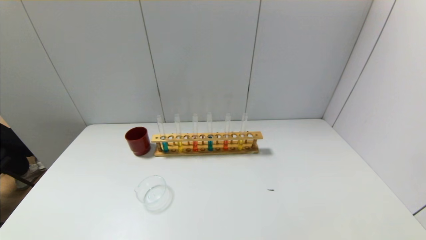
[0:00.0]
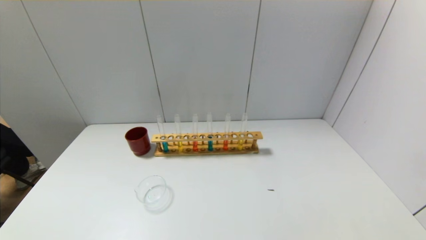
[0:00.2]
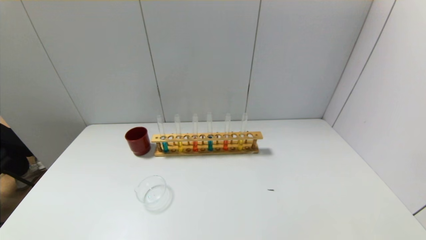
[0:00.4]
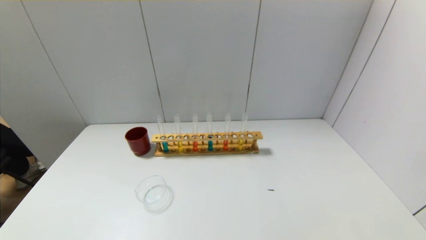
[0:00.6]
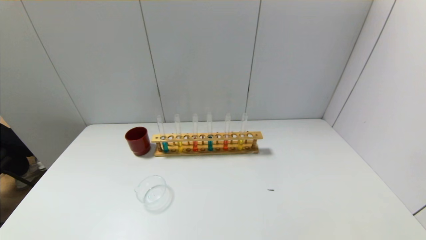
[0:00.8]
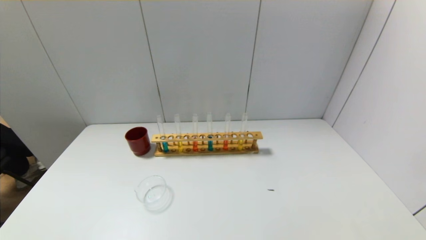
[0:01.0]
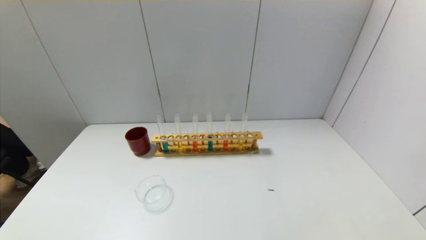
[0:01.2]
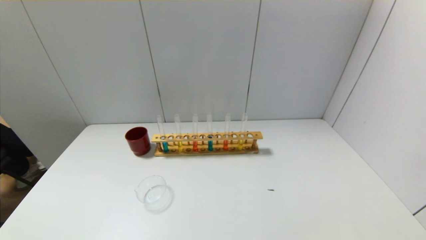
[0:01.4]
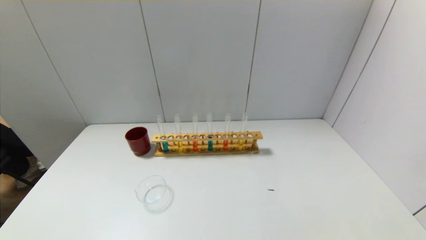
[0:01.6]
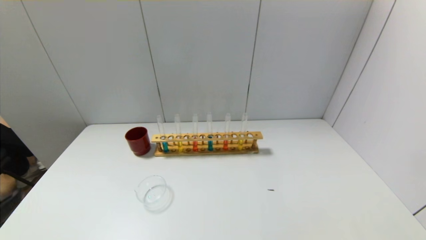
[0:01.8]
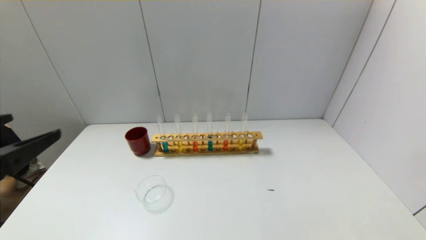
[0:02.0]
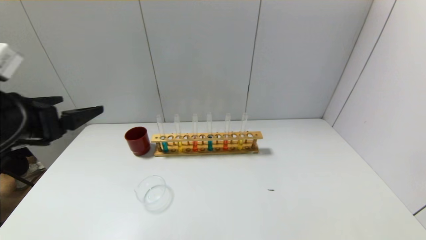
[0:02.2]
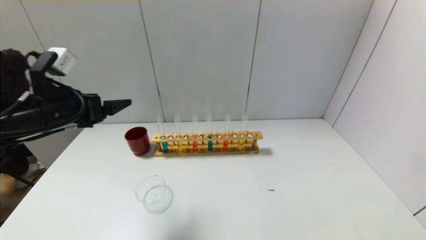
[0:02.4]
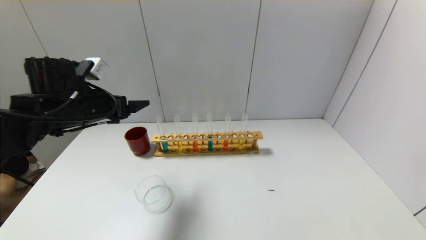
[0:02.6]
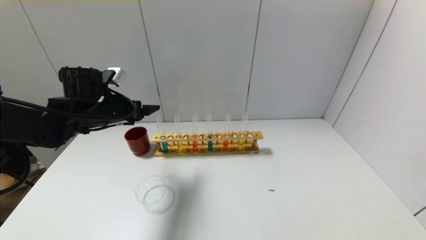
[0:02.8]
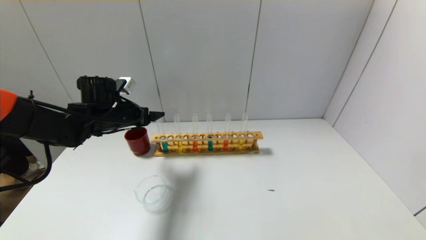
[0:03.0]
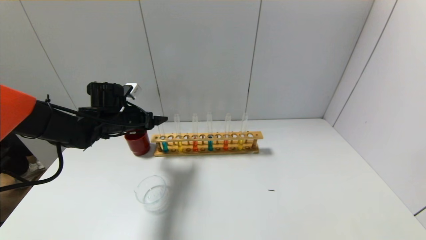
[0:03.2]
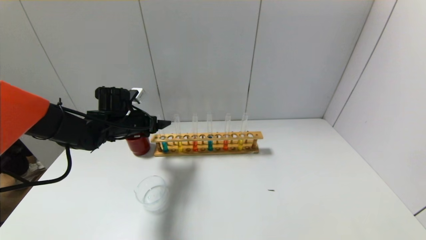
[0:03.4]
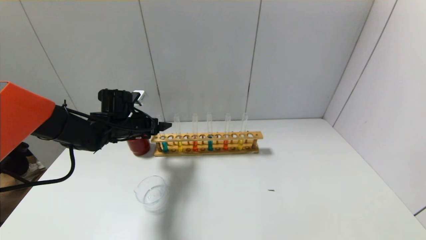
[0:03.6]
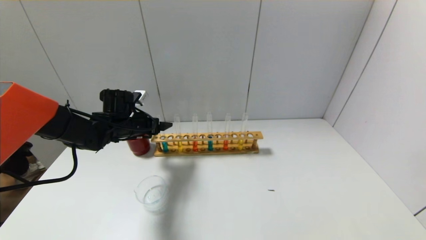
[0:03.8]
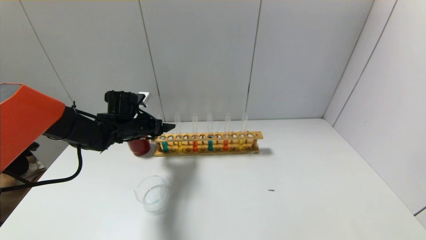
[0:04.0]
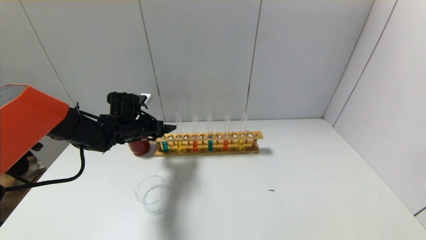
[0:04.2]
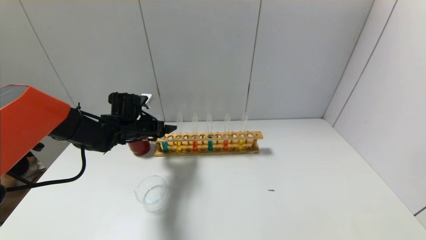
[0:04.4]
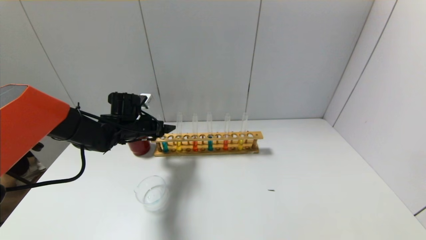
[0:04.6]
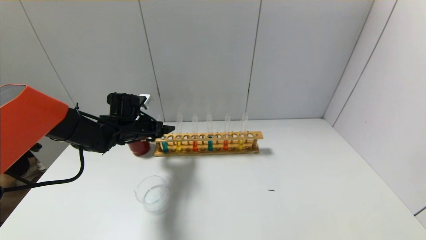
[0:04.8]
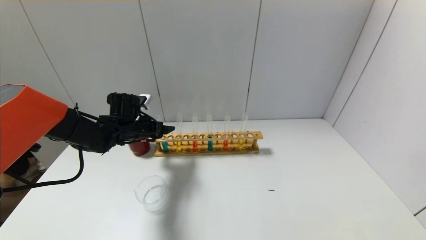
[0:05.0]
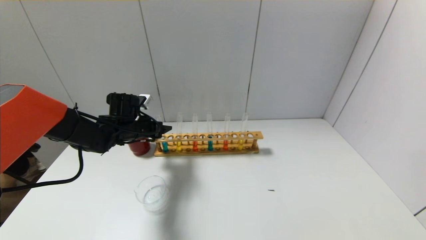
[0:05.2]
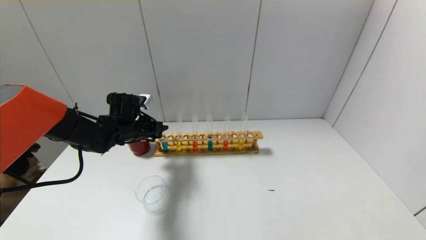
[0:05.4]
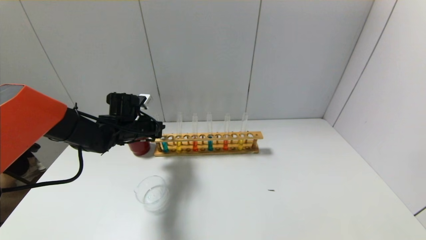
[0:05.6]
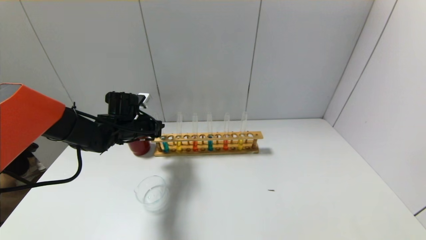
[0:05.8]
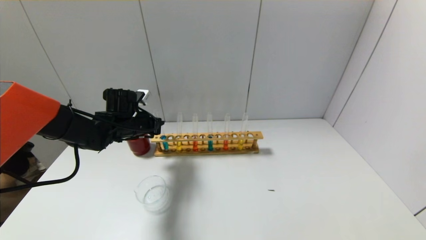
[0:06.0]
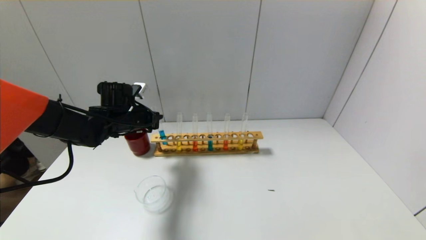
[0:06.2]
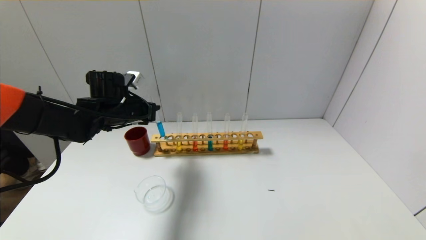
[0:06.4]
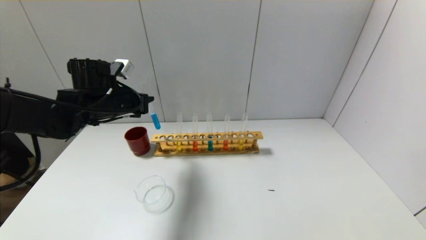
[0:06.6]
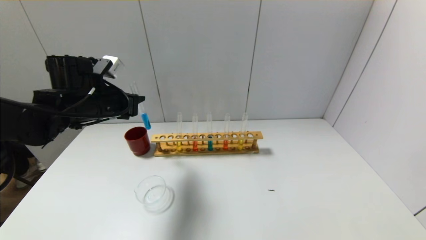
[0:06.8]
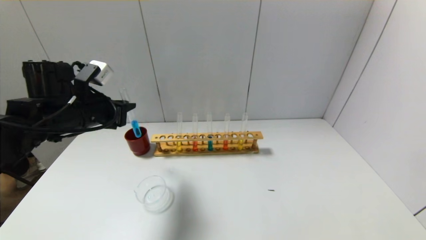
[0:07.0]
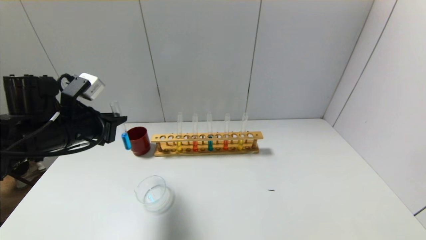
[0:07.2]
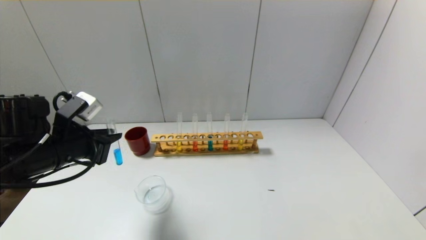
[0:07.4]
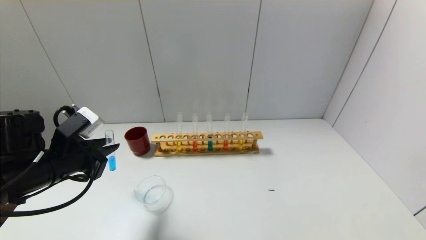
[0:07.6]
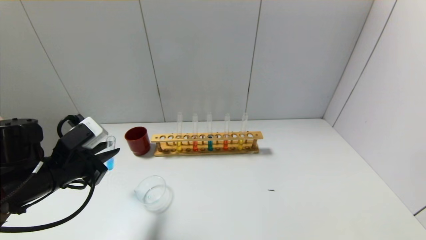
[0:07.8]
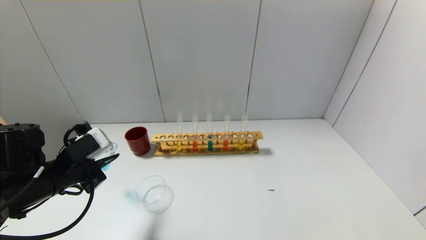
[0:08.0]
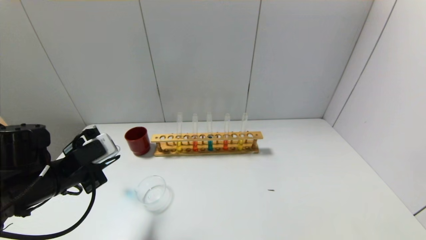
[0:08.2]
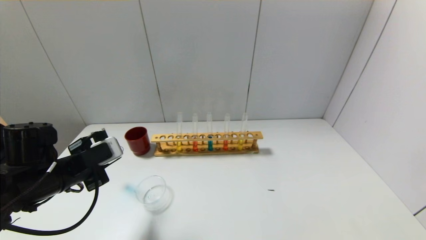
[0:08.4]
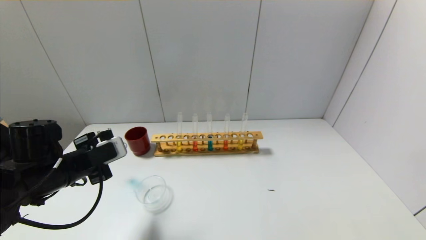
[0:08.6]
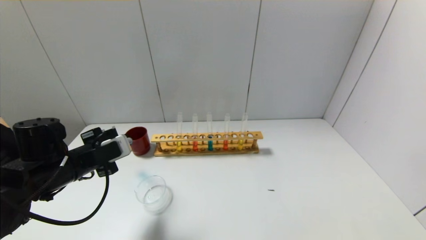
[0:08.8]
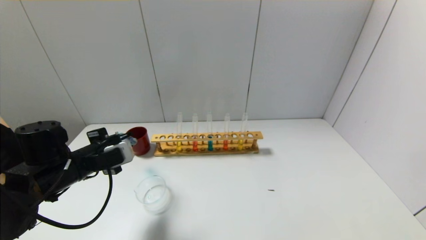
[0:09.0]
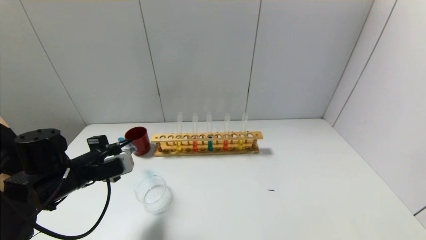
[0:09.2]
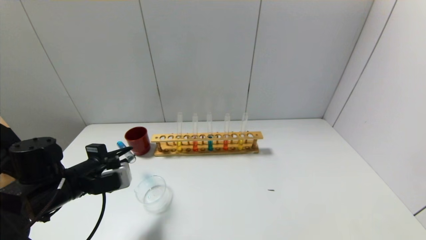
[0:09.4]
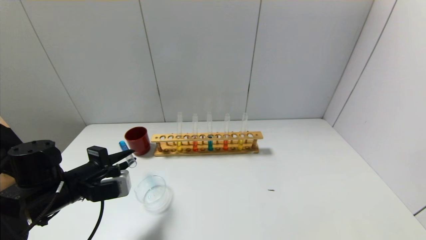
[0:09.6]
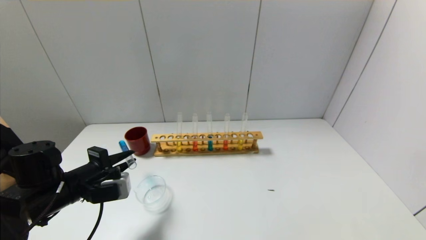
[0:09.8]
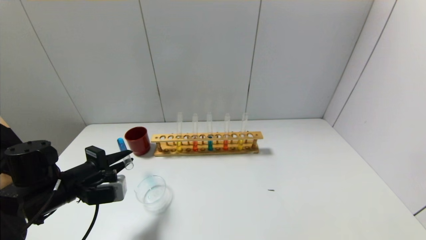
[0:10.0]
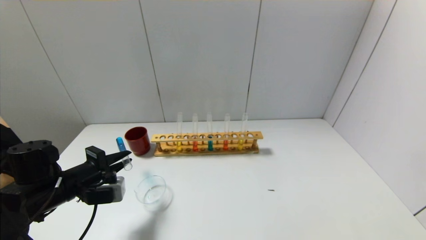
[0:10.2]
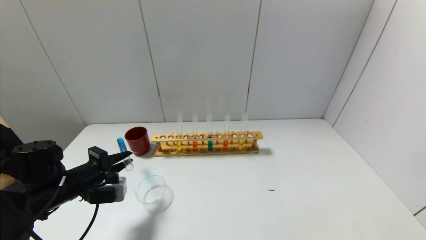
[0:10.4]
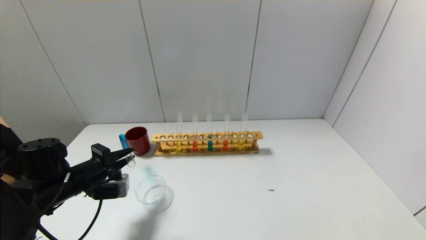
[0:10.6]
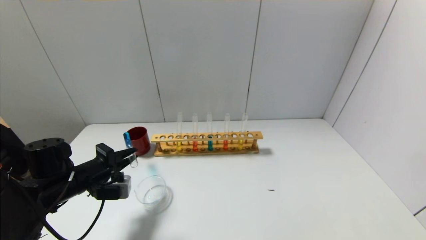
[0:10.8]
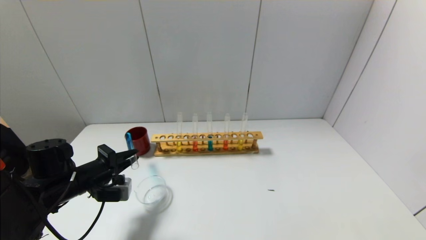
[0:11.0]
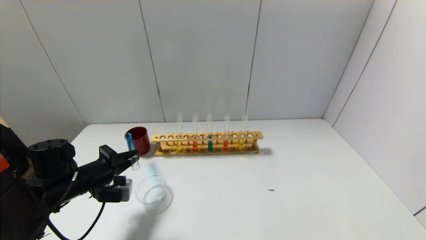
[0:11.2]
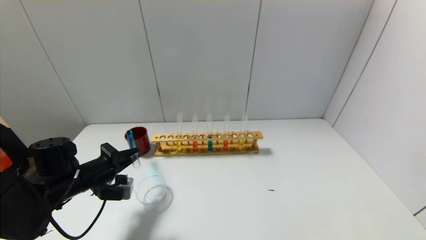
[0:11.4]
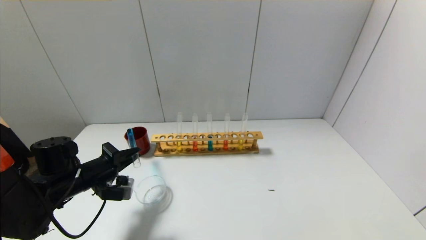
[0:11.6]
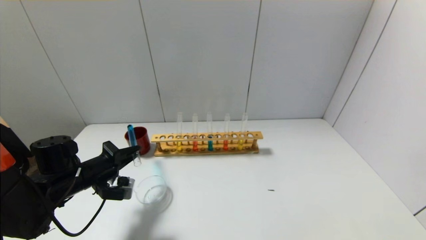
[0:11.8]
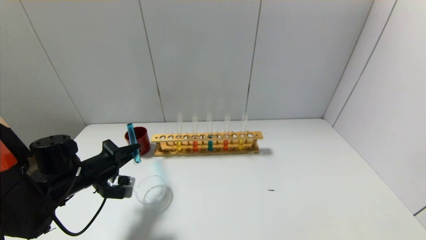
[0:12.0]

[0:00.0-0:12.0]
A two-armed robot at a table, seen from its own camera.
Step, 0:00.0 to 0:05.6: Grasp the blue reagent with the left gripper.
0:01.6 to 0:03.0: The left gripper travels forward by some 40 cm.
0:03.0 to 0:04.4: The left gripper ends up approximately 5 cm from where it was.
0:04.4 to 0:06.0: The left gripper closes up.
0:06.0 to 0:07.6: The left gripper moves backward, roughly 20 cm.
0:10.4 to 0:12.0: There are only small adjustments of the grippers.

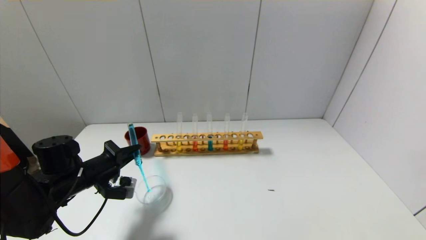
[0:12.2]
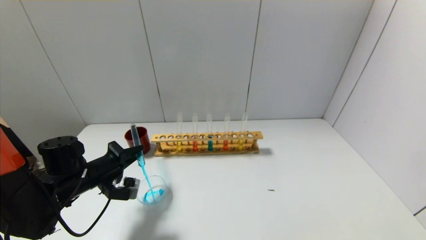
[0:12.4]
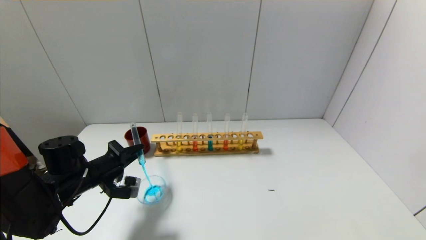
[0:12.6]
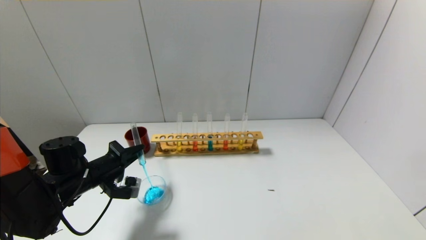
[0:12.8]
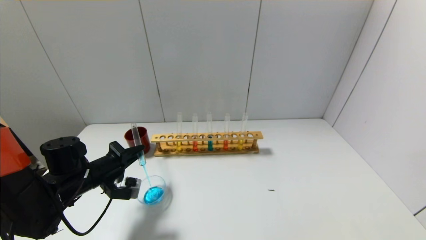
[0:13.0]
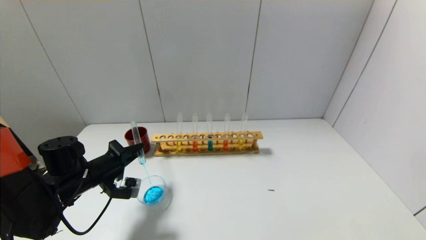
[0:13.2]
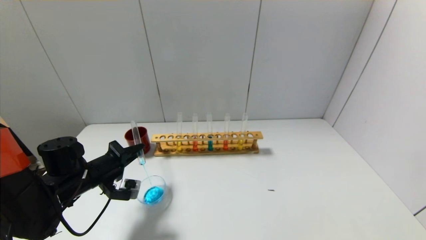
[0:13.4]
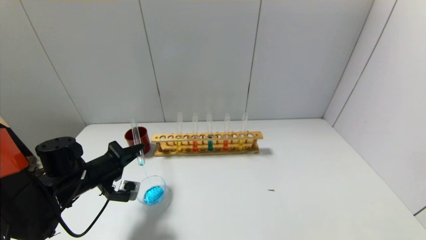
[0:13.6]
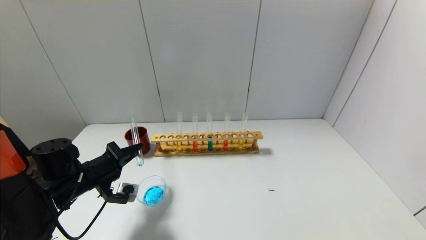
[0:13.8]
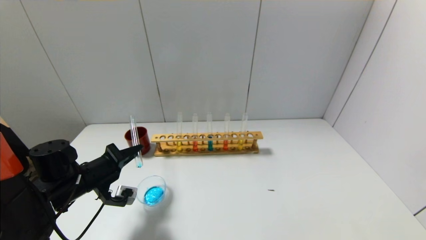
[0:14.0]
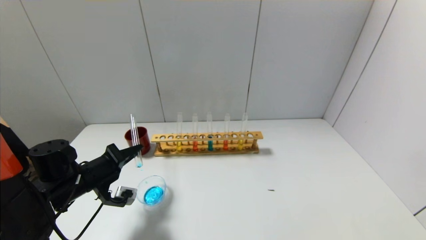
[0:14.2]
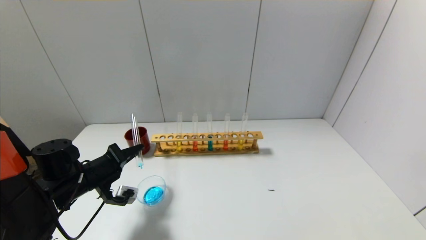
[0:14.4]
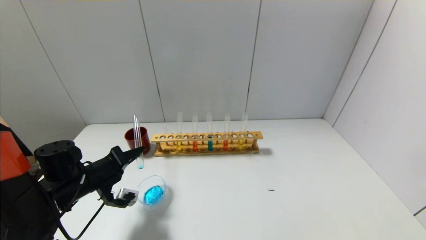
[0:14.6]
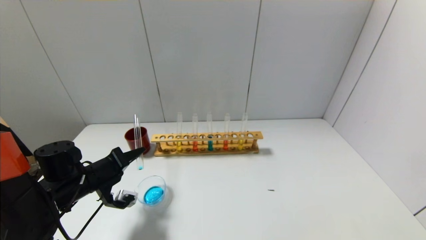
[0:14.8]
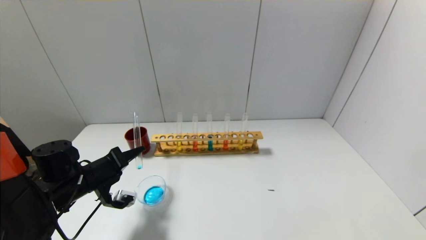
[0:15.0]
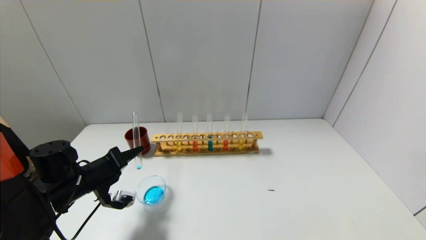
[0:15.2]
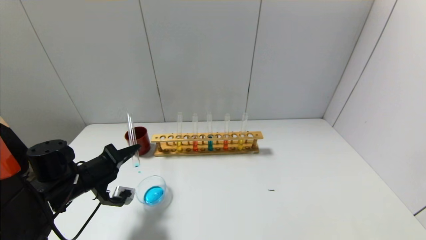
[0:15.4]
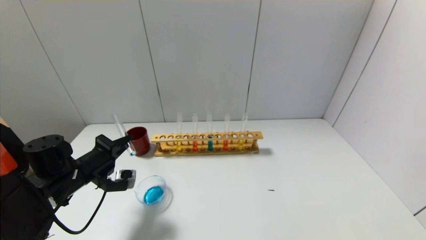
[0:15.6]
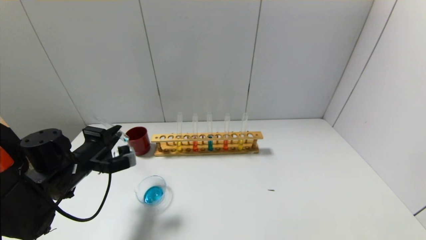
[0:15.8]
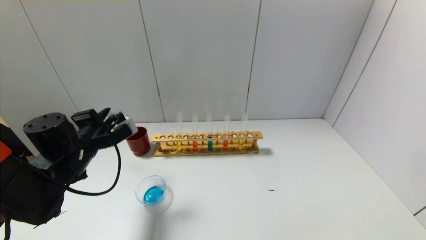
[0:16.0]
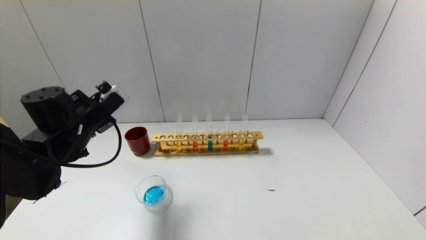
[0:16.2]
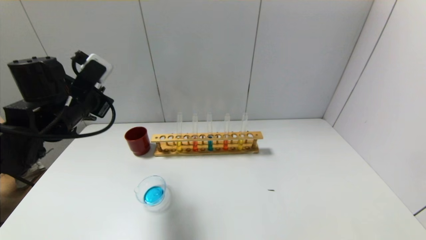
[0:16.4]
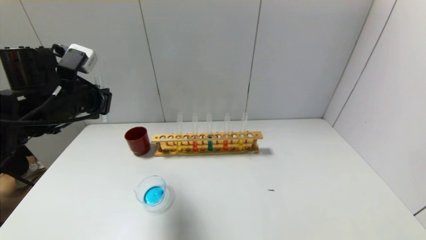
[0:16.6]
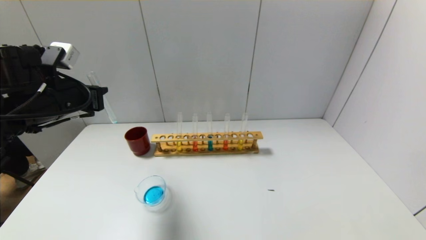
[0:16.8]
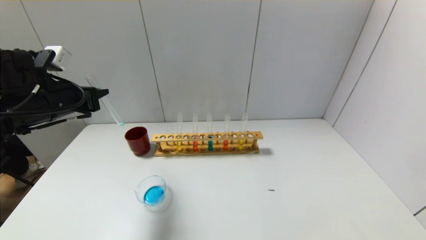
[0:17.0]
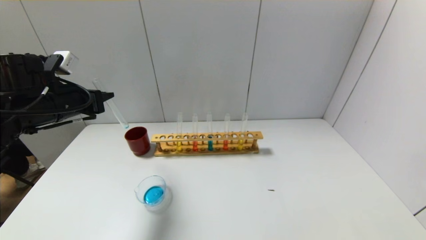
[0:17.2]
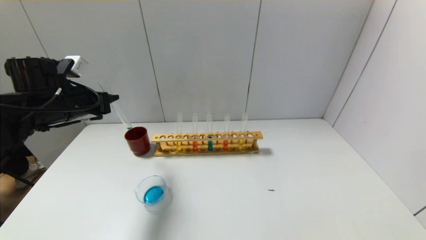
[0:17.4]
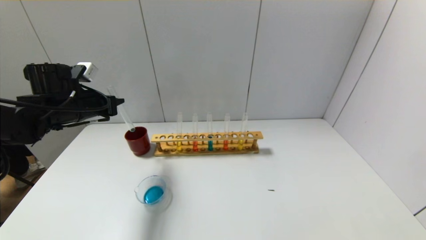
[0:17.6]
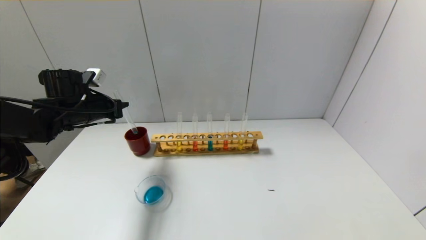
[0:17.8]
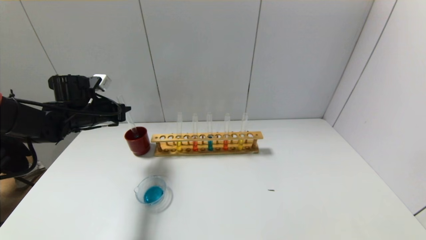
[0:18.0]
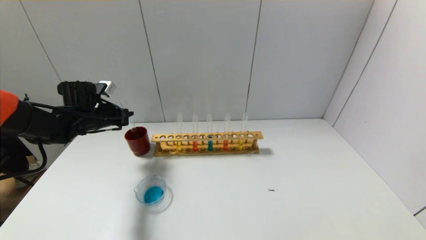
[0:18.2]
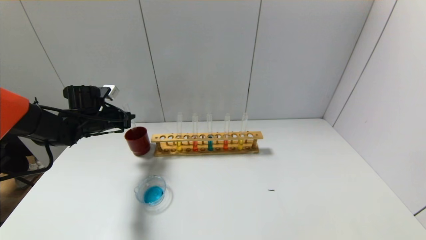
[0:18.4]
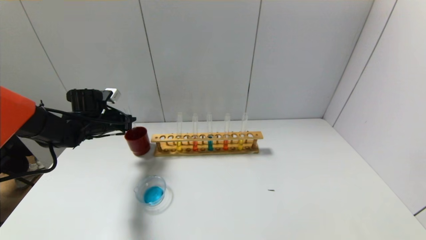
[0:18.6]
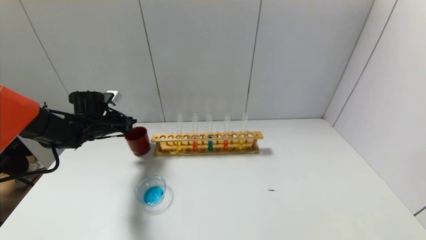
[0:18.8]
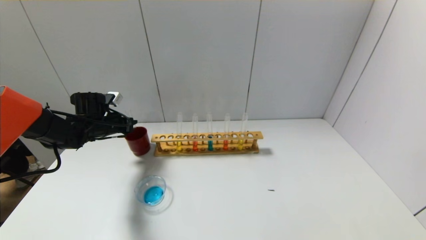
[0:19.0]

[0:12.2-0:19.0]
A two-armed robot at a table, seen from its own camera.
Step, 0:12.2 to 0:15.4: Pour the blue reagent into the graduated cylinder with the left gripper.
0:12.2 to 0:13.6: The grippers move only a little.
0:13.6 to 0:15.0: There are only small adjustments of the grippers.
0:15.0 to 0:16.2: The left gripper travels upward by roughly 10 cm.
0:16.2 to 0:17.6: The left gripper goes some 5 cm forward.
0:17.6 to 0:19.0: The left gripper travels downward and forward by some 10 cm.
